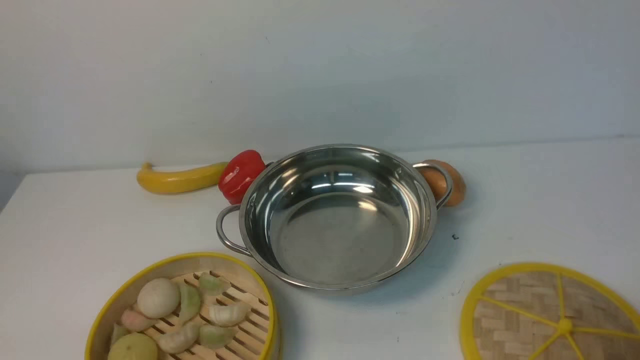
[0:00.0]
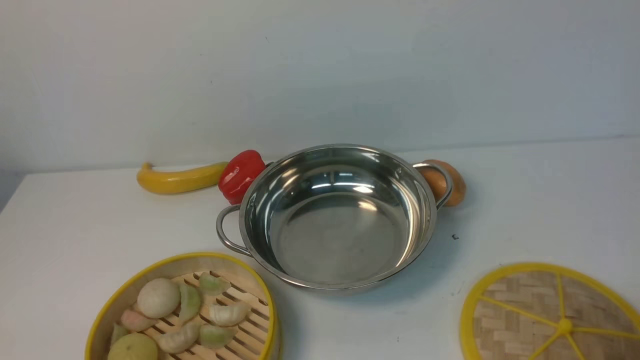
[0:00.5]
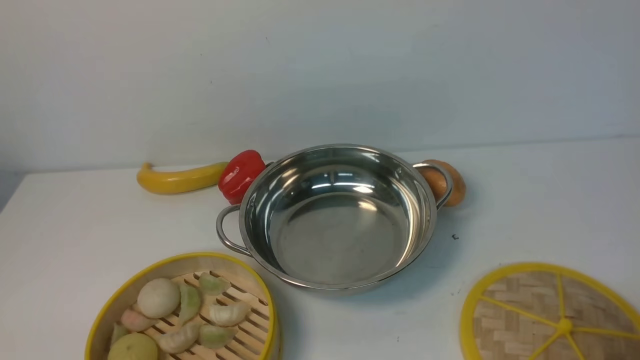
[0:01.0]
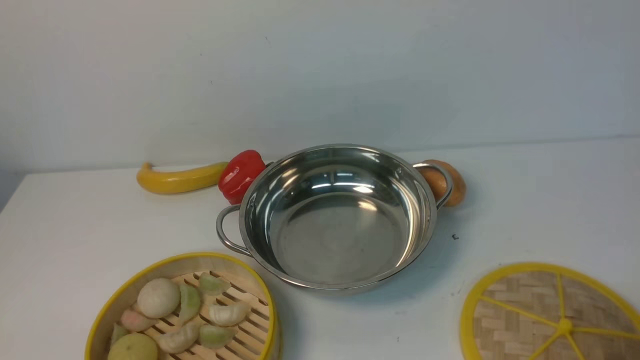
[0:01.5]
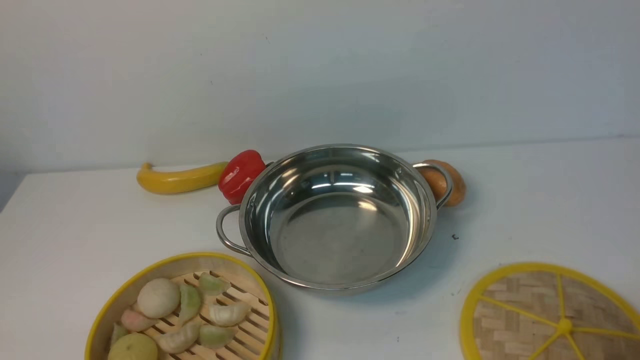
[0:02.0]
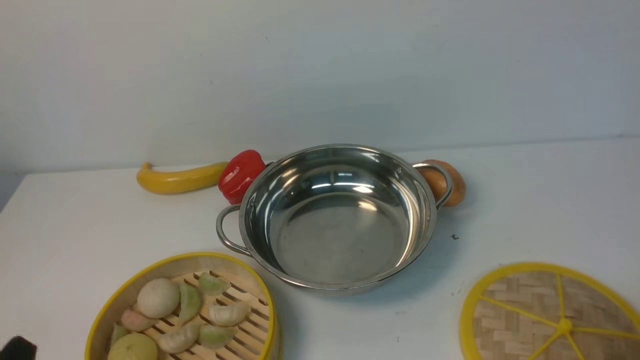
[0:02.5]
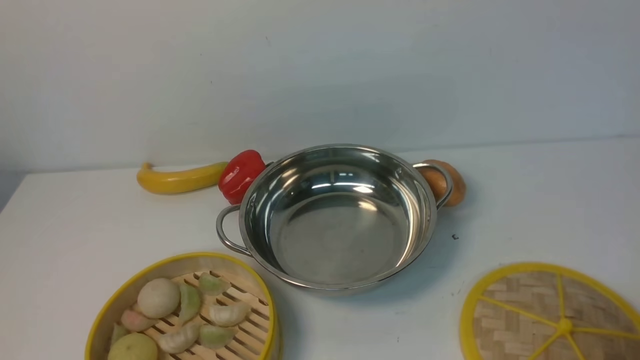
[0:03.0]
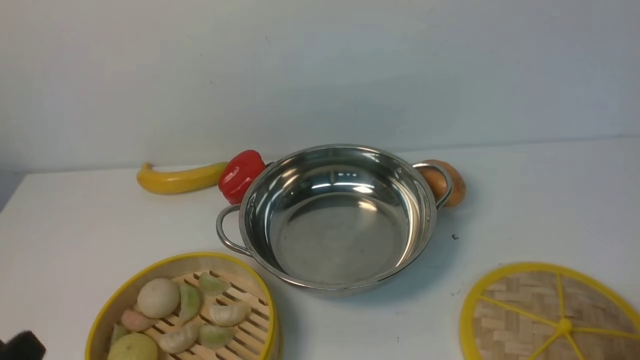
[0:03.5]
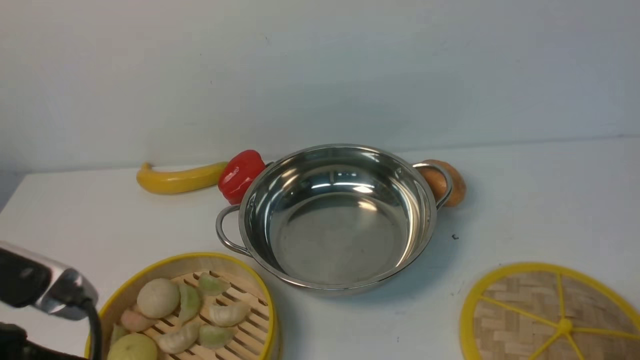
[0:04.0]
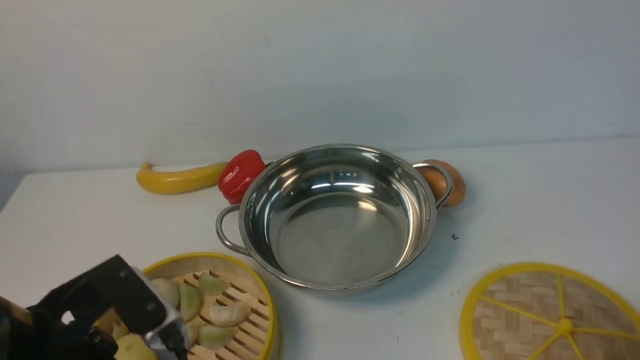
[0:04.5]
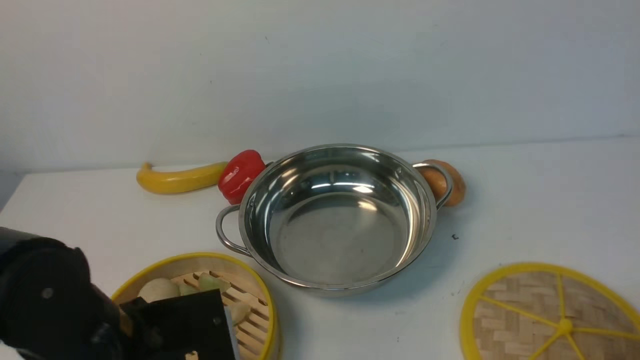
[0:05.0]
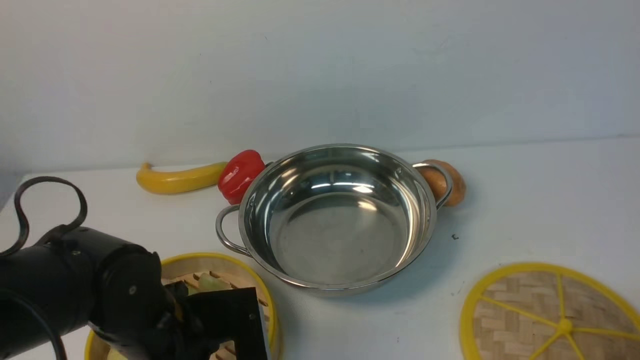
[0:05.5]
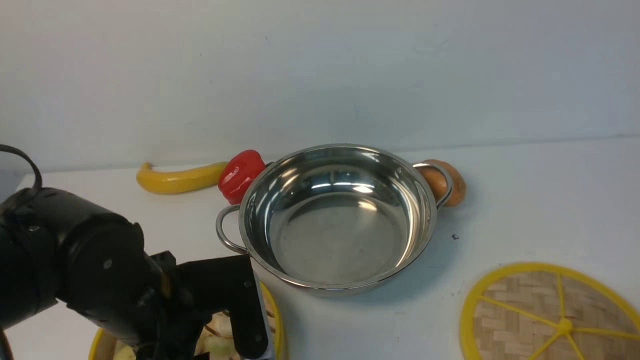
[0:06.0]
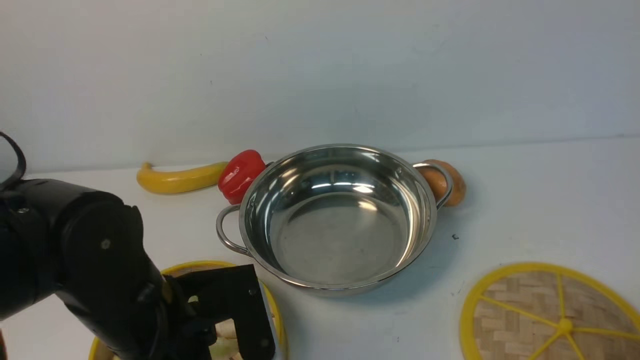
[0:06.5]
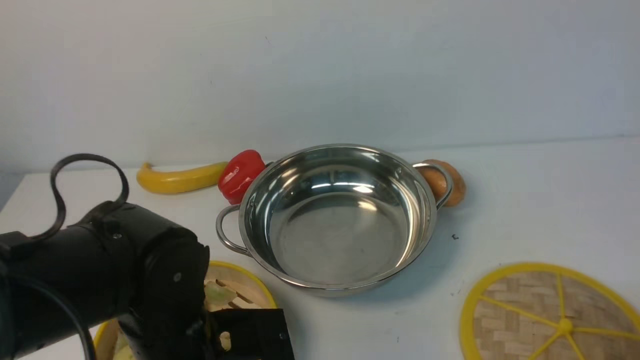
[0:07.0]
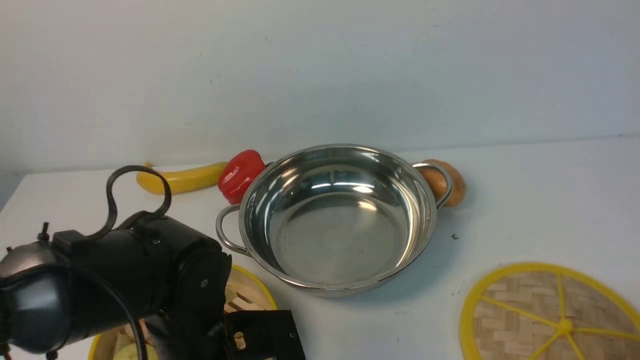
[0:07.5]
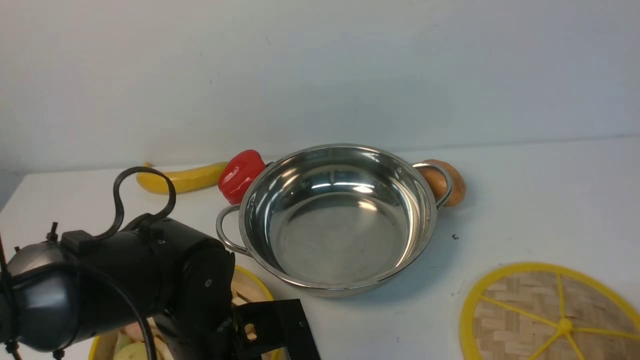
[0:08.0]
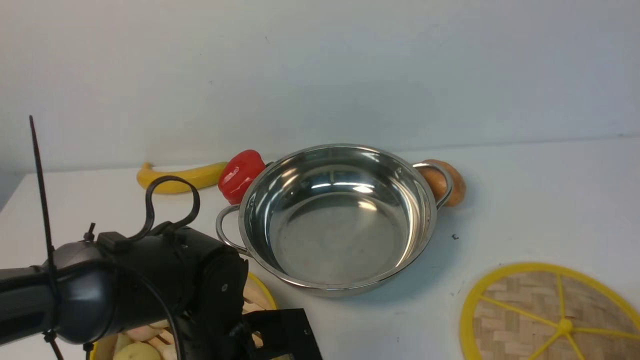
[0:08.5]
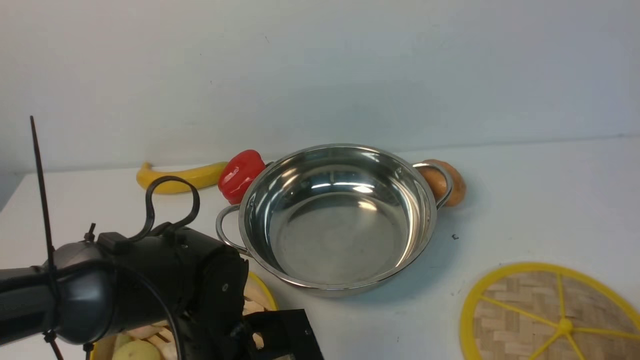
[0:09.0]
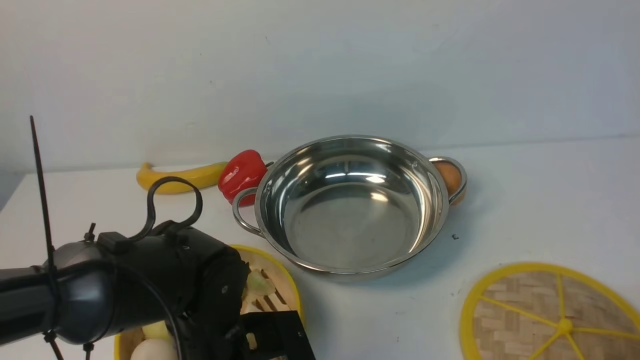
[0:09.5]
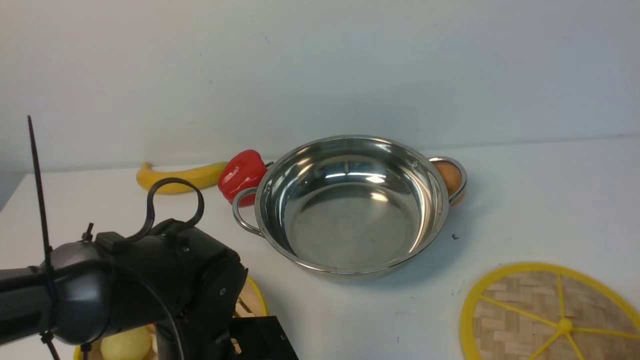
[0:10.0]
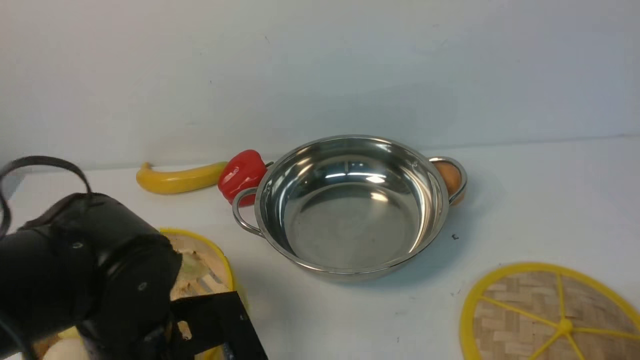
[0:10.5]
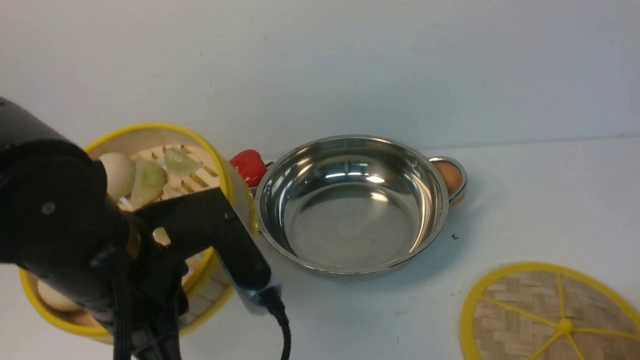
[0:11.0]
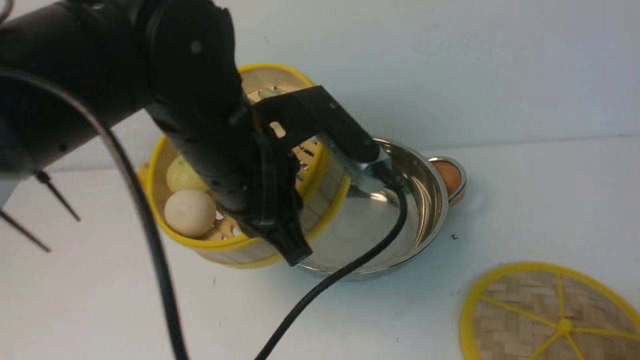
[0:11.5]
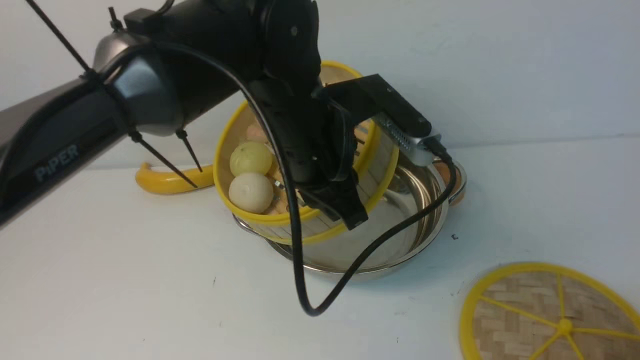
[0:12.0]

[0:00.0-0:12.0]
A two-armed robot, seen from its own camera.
Task of the whole recording: place the steamer in the pot on the white table, and put the lid on the steamer.
Step, 0:00.0 to 0:10.5: use the left arm to lift the steamer closest to it.
0:00.0 to 0:02.0: Both grippers stay about where they are.
0:02.0 to 0:04.0: The left gripper moves upward and forward, roughly 15 cm.
0:04.0 to 0:06.0: The left gripper travels forward, to the right and downward by roughly 15 cm.
0:06.0 to 0:08.0: The left gripper moves downward, approximately 5 cm.
0:08.0 to 0:10.0: The left gripper closes its fingers.
0:10.0 to 0:12.0: The left gripper heads upward, forward and to the right, covering roughly 20 cm.

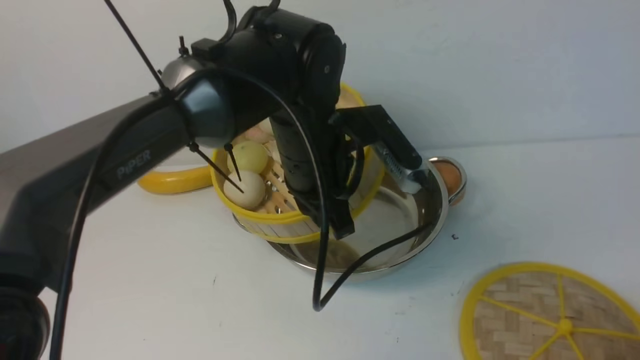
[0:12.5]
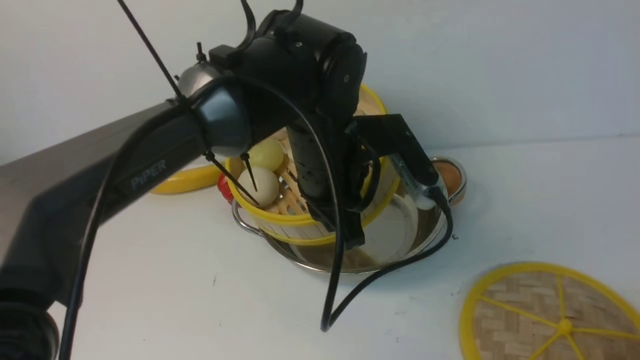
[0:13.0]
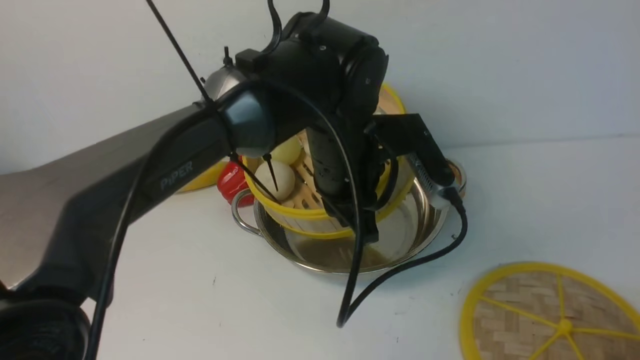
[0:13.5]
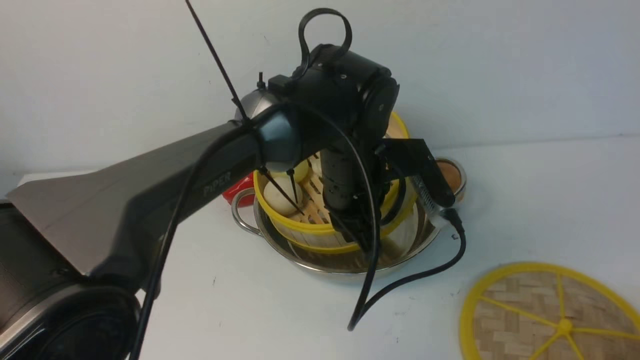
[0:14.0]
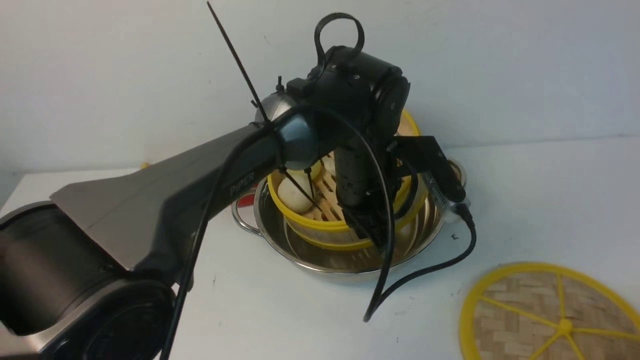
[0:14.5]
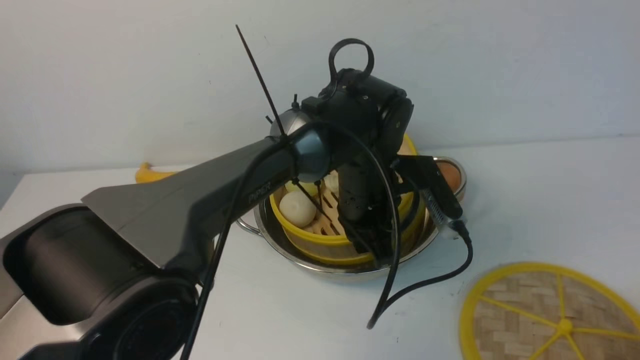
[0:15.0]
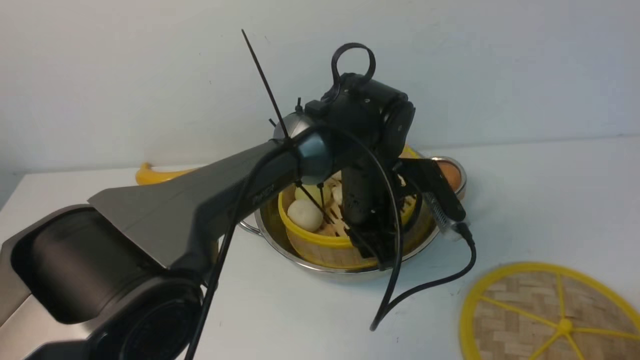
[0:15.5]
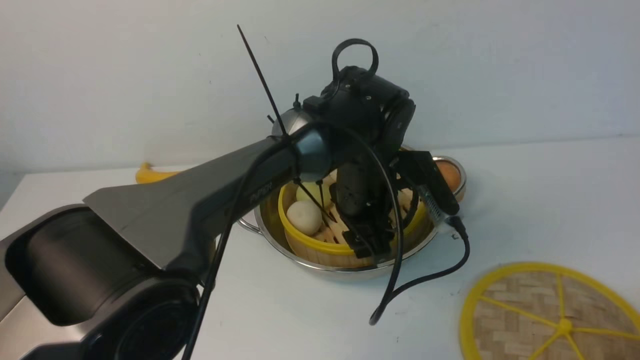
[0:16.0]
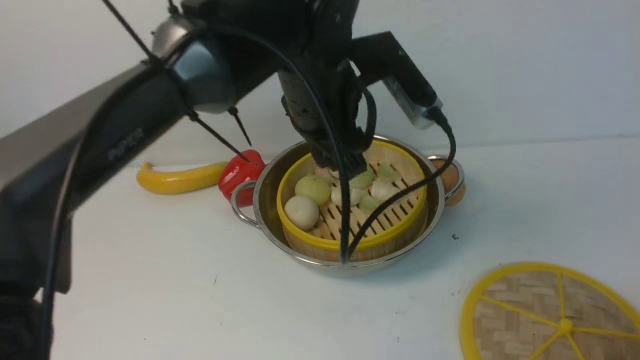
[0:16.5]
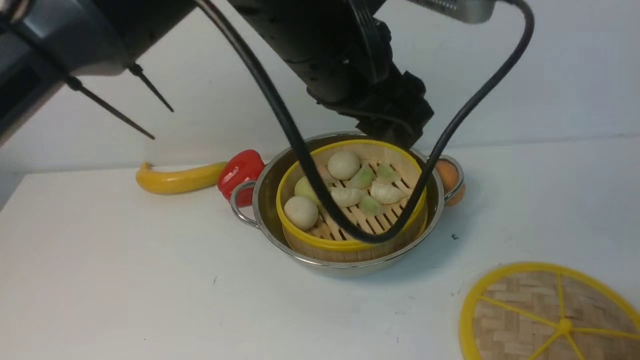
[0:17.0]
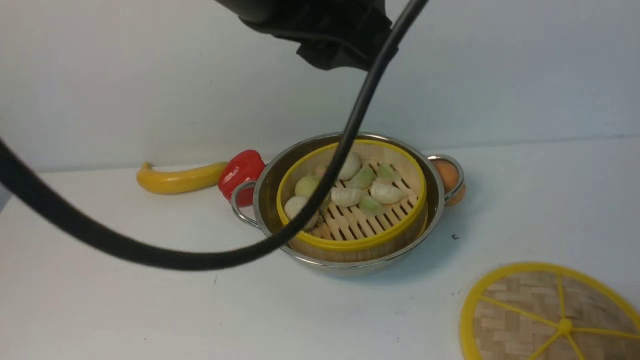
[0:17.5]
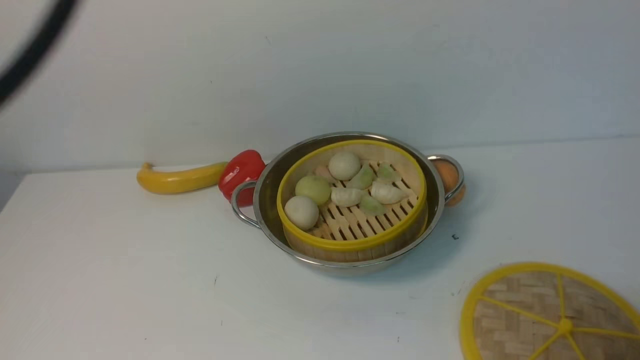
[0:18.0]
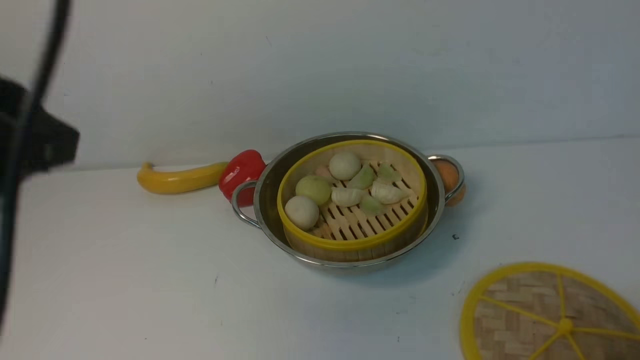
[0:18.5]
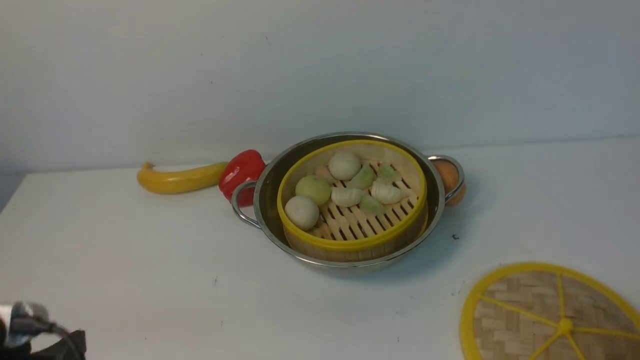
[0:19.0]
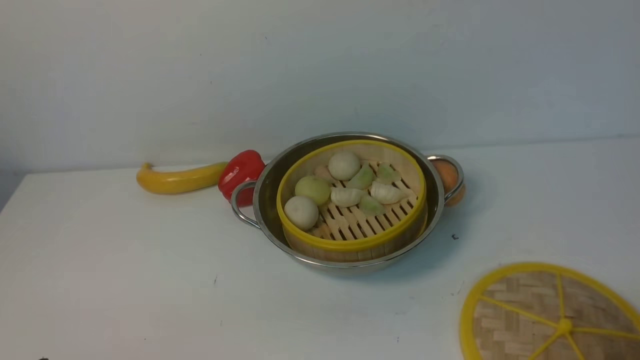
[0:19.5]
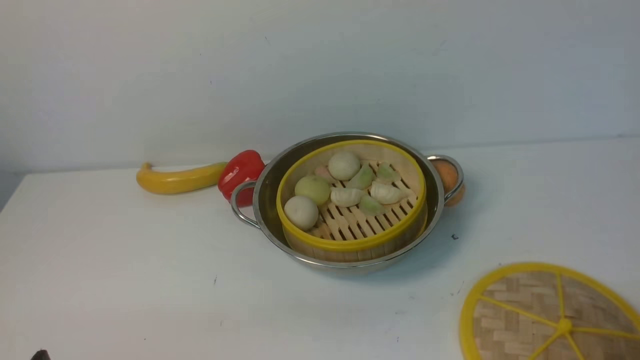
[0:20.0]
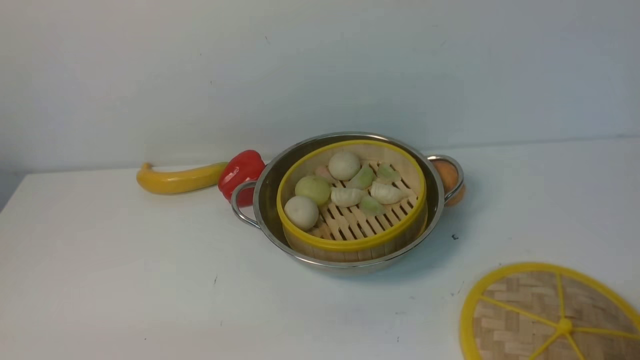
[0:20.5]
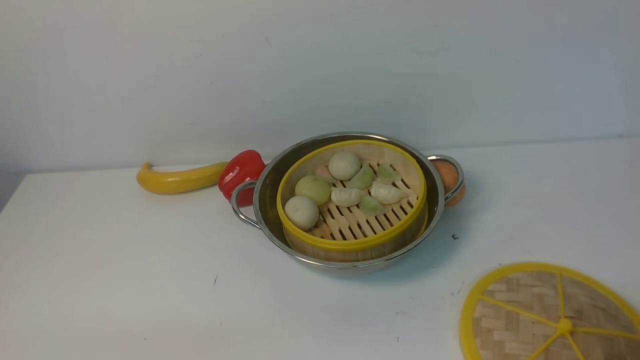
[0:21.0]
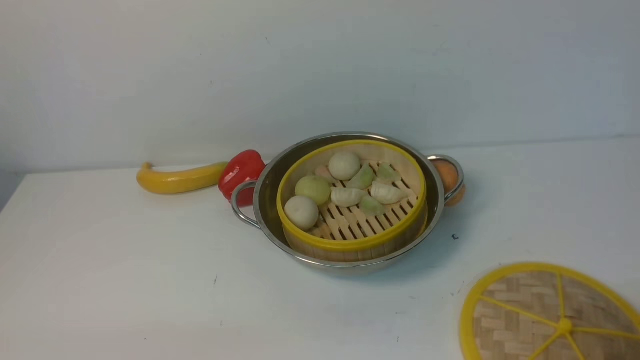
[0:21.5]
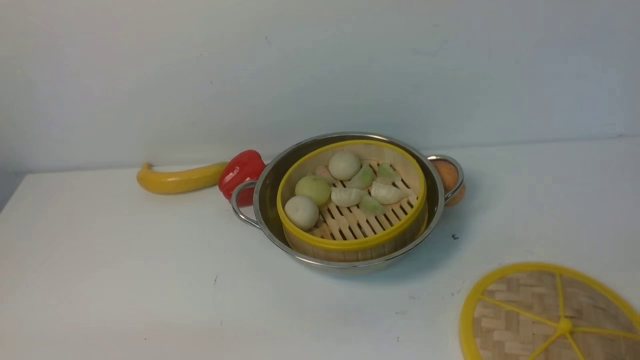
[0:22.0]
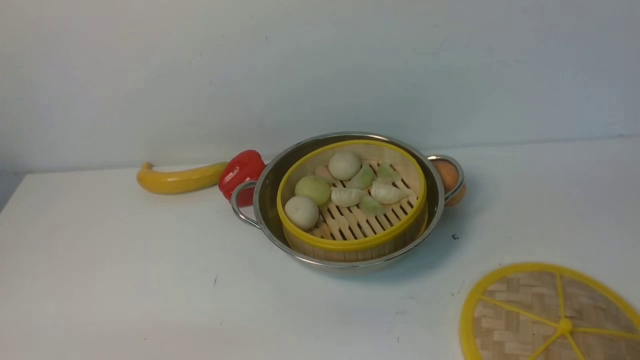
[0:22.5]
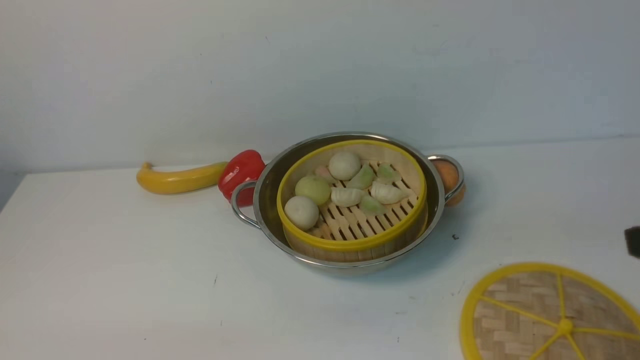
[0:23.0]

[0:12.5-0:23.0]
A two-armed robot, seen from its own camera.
Task of the whole recording: place the steamer in the pot on the white table, and put the lid on the steamer.
Step, 0:12.5 to 0:16.5: use the left arm to put the steamer into the iron steamer pot in the middle.
0:12.5 to 0:14.5: The left gripper travels to the right by roughly 5 cm.
0:14.5 to 0:16.5: The left gripper travels upward by some 10 cm, and opens up.
0:16.5 to 0:19.0: The left gripper heads backward and to the left, covering approximately 35 cm, and travels upward and back again, some 20 cm each way.
0:19.0 to 0:21.0: The left gripper goes about 10 cm downward.
